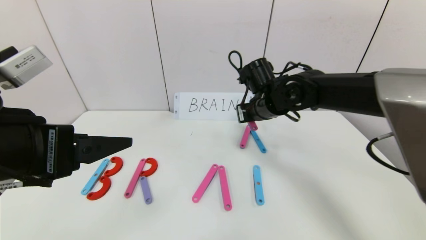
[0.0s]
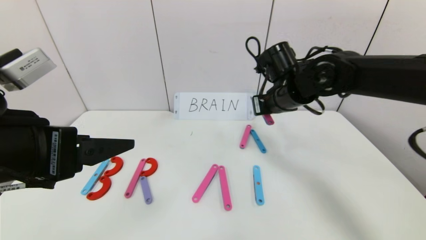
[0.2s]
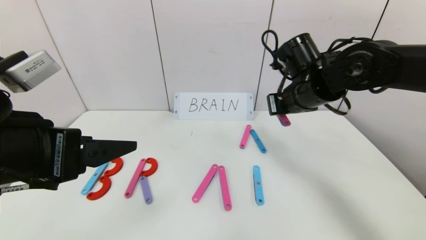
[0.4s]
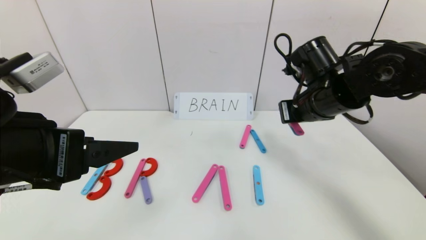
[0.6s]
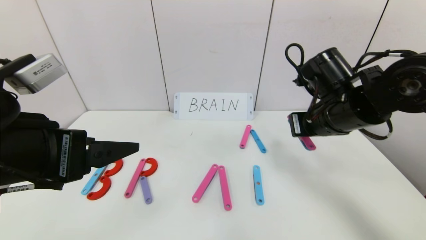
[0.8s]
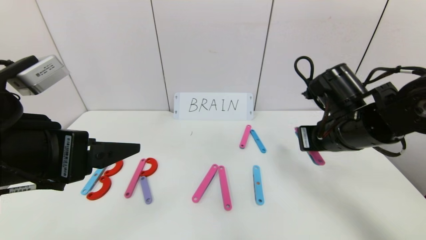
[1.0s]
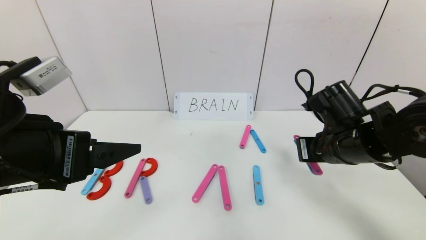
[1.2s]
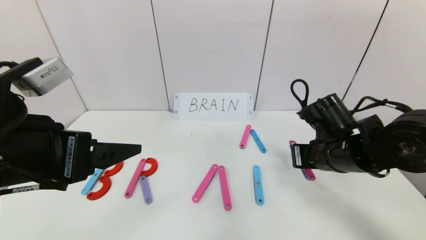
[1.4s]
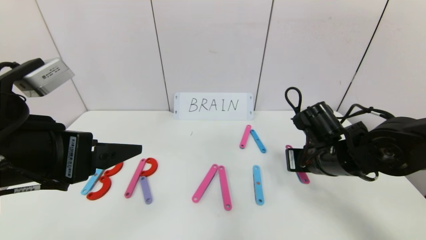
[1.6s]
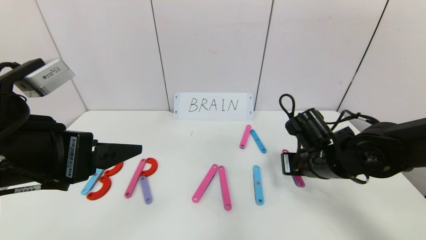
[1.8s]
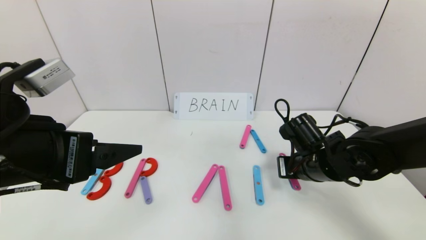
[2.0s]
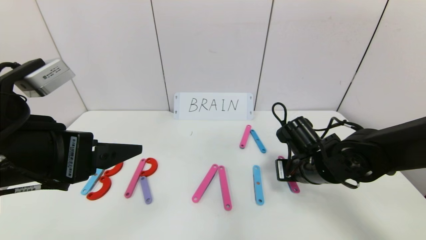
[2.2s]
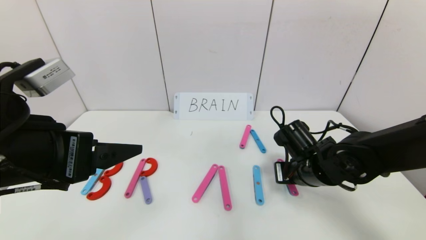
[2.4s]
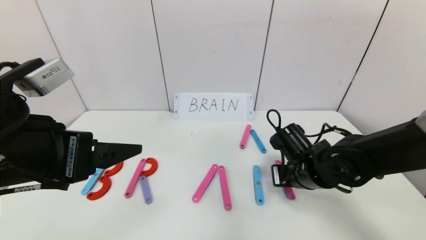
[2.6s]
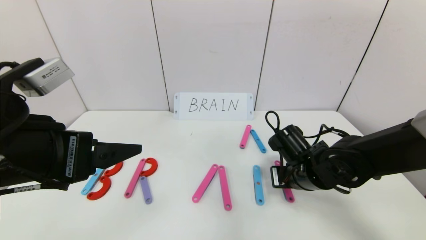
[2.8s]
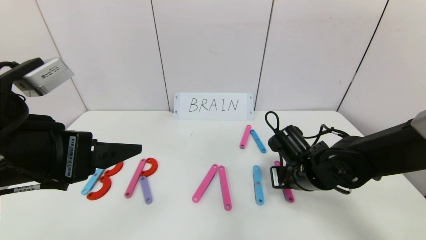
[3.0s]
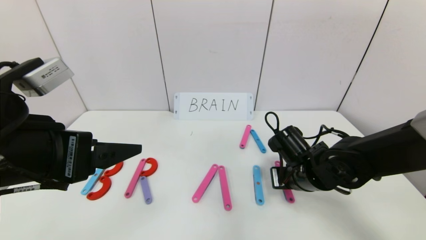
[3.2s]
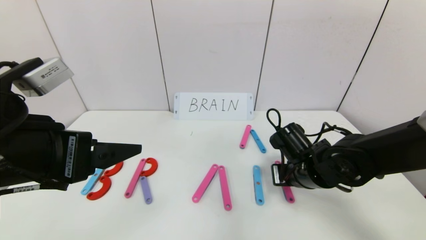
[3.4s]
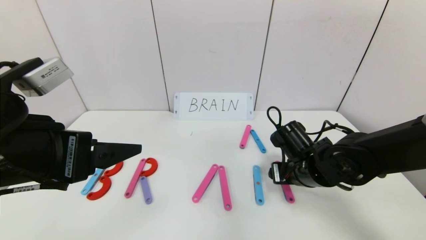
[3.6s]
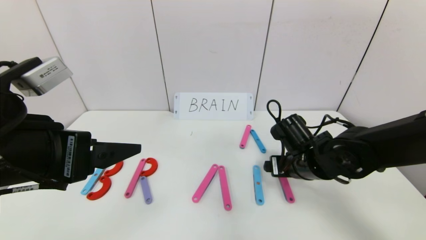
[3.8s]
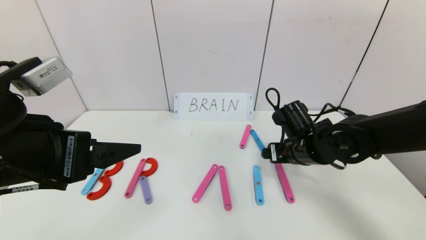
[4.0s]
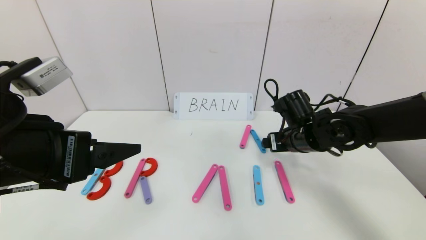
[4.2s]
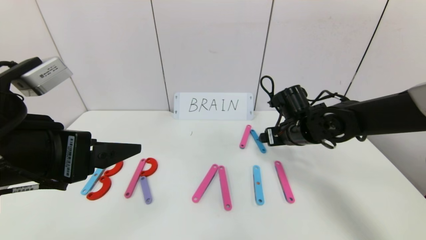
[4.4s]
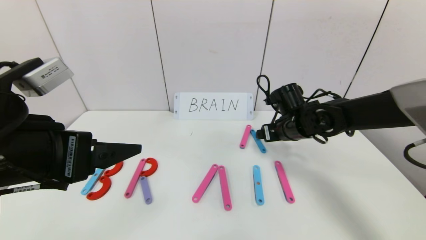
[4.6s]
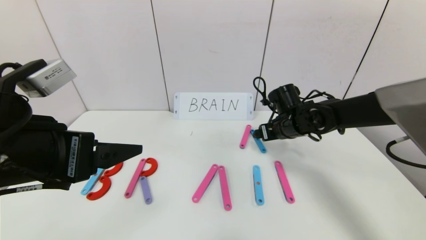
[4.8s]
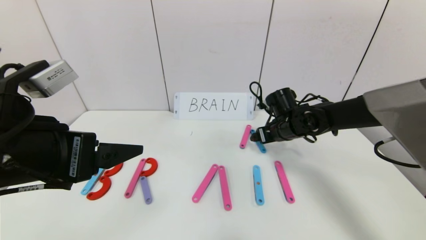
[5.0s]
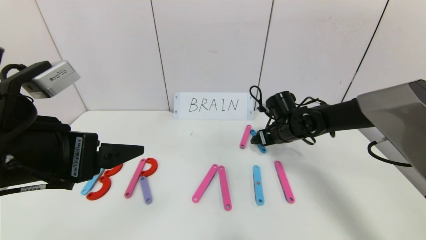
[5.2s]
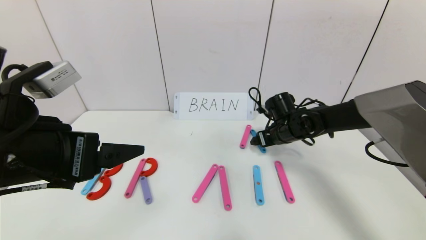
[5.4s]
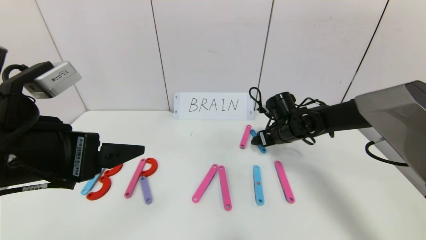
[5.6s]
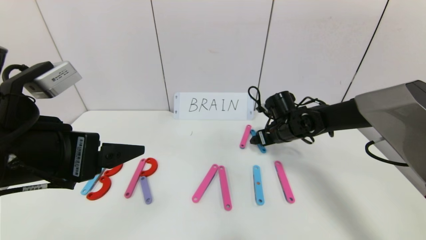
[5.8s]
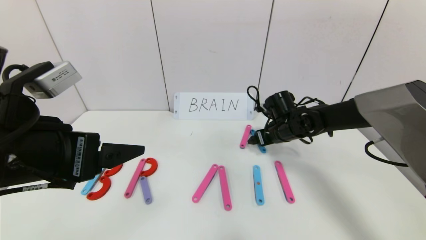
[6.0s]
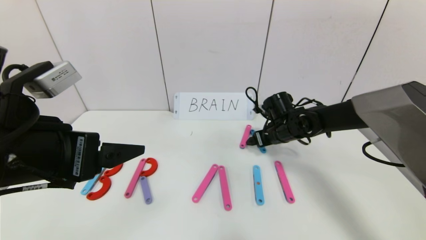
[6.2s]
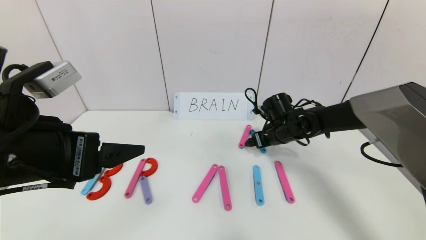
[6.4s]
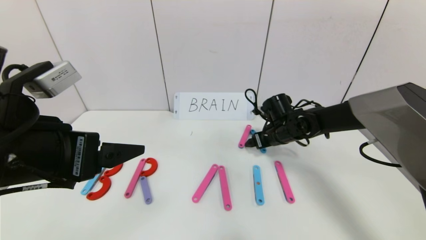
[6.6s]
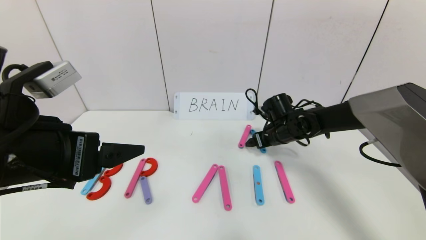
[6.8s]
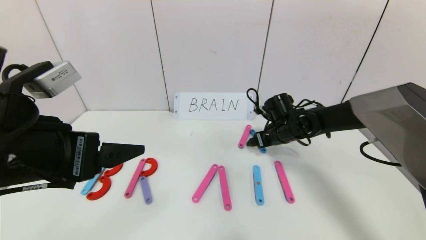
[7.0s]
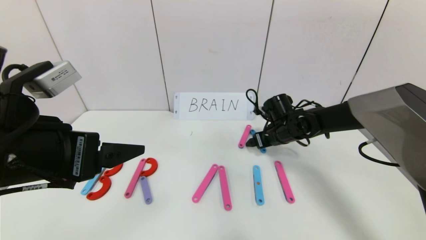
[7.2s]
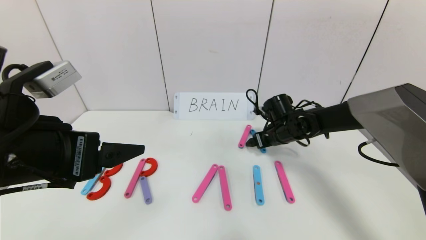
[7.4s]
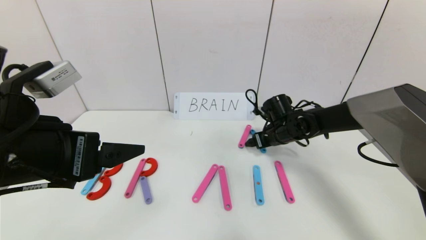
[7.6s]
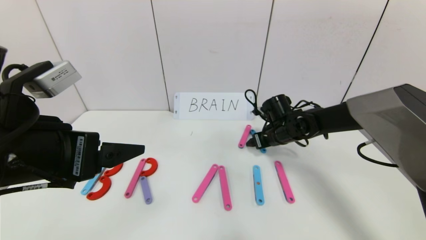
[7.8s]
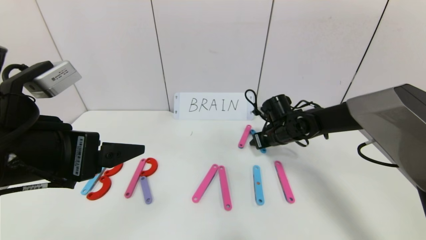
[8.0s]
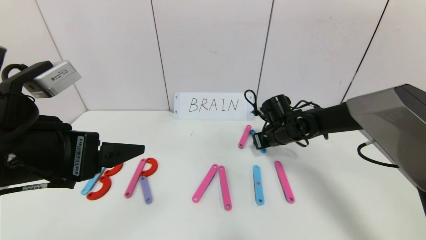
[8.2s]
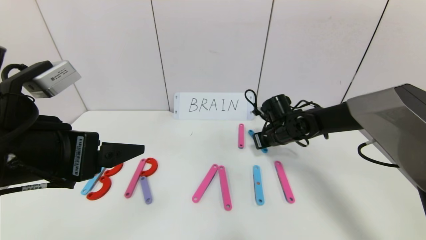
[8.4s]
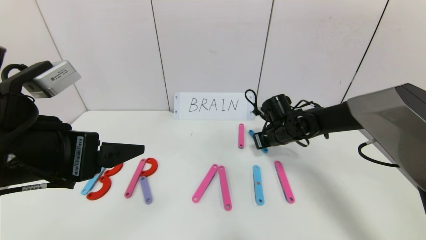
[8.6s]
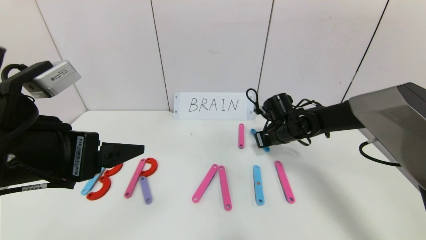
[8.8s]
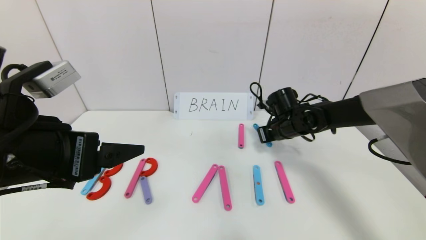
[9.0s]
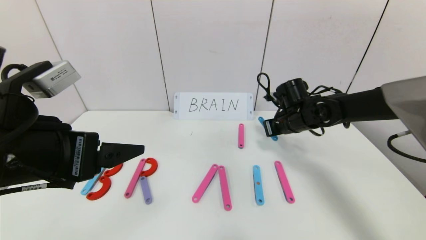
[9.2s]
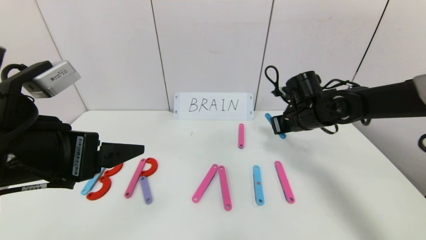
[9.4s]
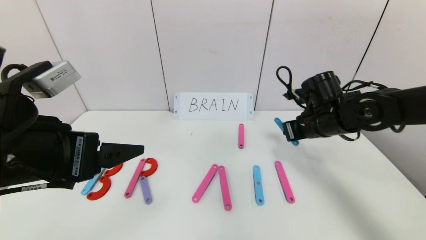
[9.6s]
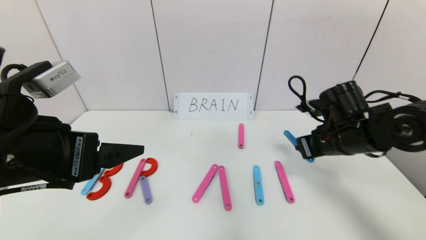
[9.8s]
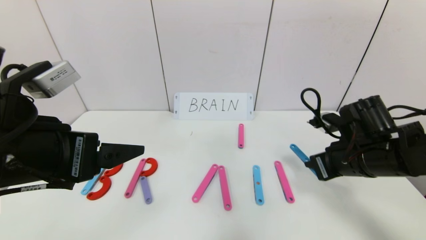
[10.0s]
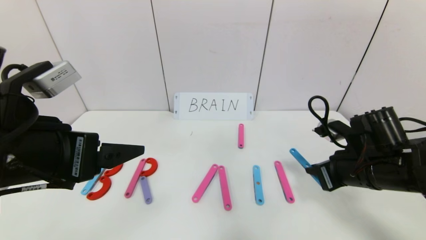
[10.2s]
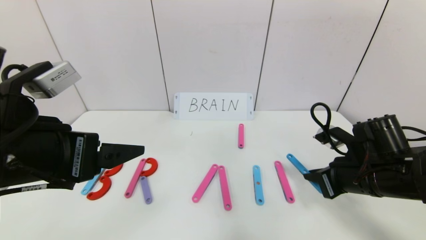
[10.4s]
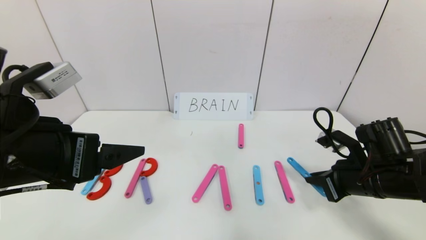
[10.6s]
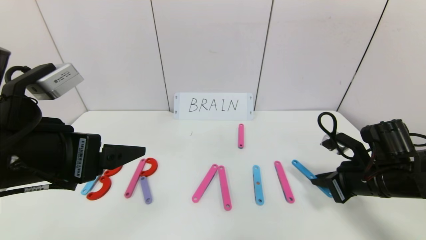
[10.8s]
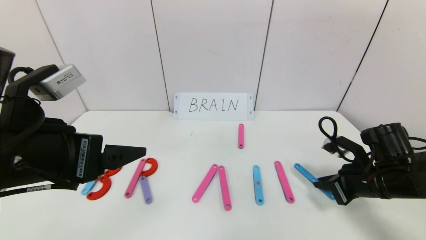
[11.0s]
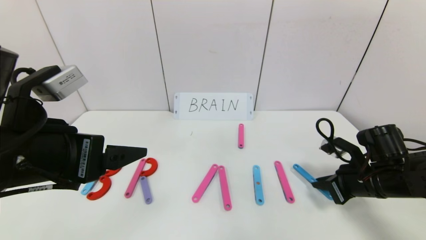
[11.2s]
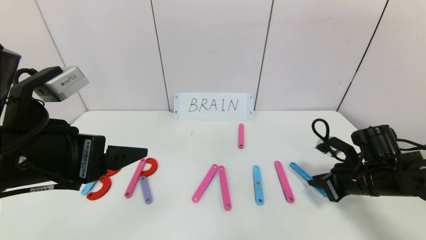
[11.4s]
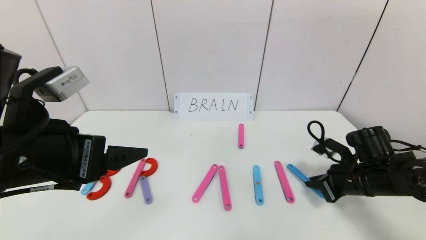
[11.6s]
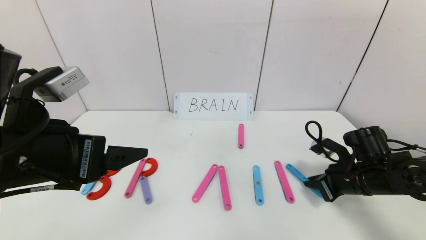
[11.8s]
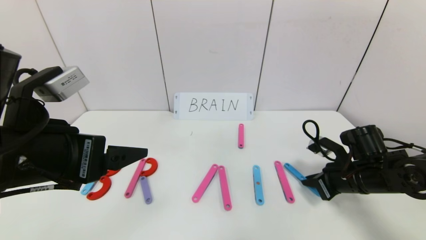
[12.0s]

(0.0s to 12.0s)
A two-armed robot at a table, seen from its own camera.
Task of the whole recording: rearrange the word baai as brain.
0.0s - 1.6s: The right gripper goes roughly 15 cm backward, to the right and downward.
1.6s - 3.0s: The right gripper goes some 5 cm downward.
3.0s - 4.4s: The right gripper goes approximately 10 cm forward and upward, and opens up.
4.4s - 6.0s: The right gripper travels forward by about 5 cm.
6.0s - 7.6s: Neither gripper changes place.
7.6s - 9.0s: The right gripper closes.
9.0s - 10.4s: The right gripper is displaced backward by some 20 cm.
10.4s - 12.0s: The right gripper ends up about 5 cm from where it was.

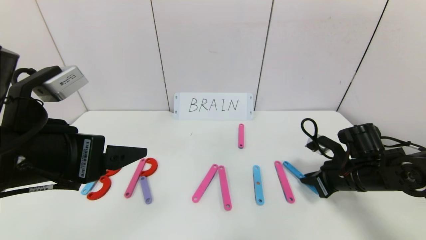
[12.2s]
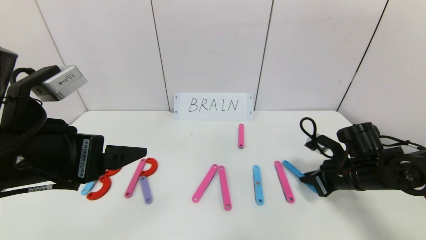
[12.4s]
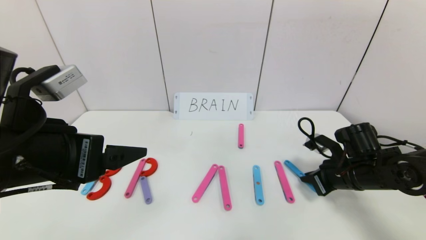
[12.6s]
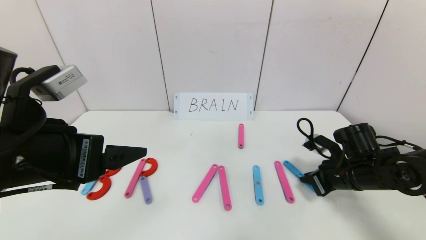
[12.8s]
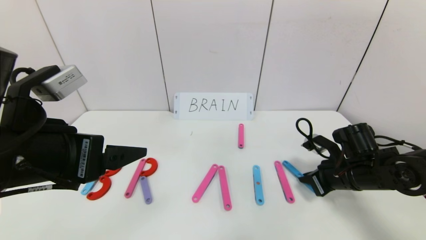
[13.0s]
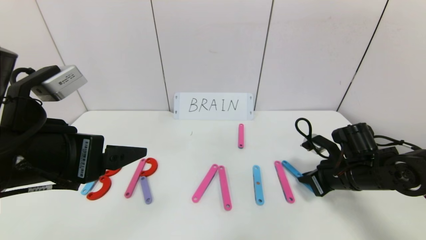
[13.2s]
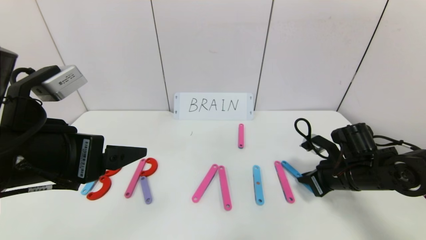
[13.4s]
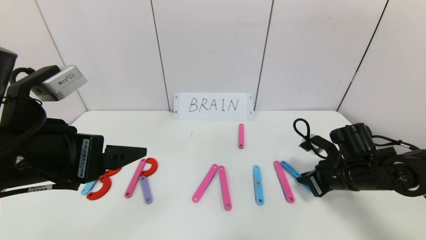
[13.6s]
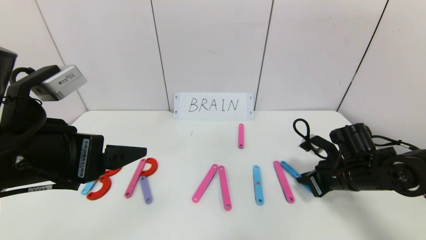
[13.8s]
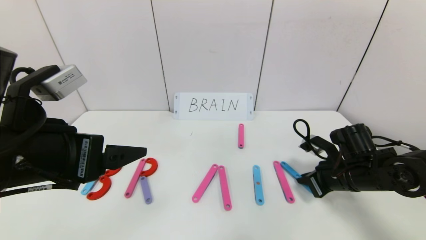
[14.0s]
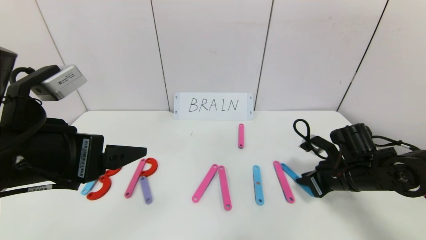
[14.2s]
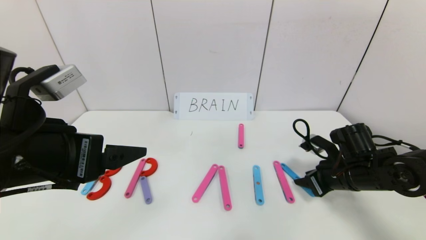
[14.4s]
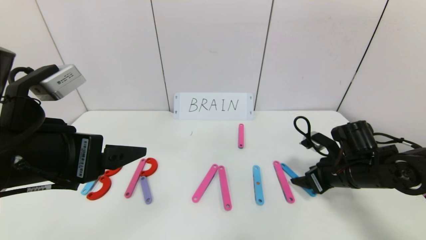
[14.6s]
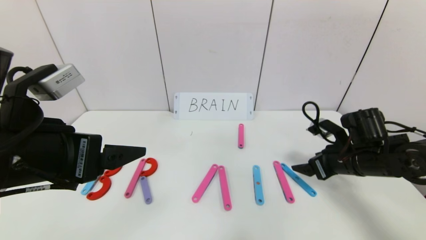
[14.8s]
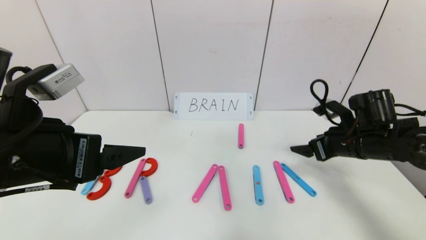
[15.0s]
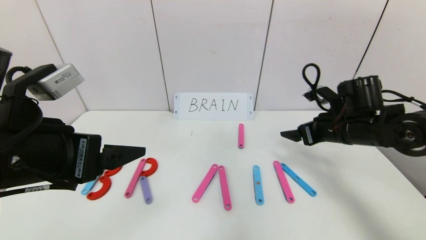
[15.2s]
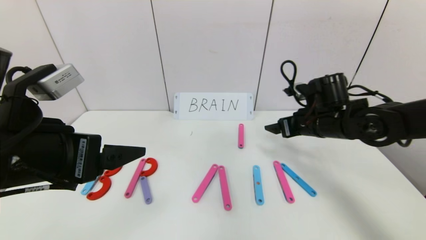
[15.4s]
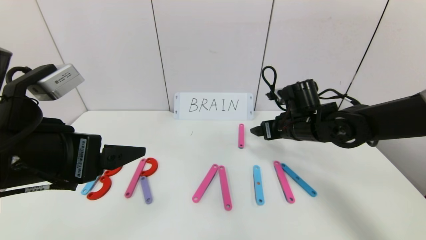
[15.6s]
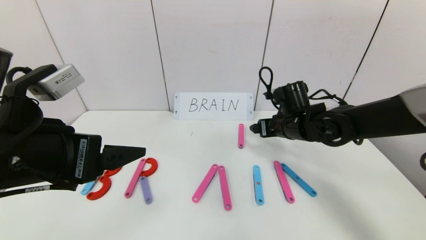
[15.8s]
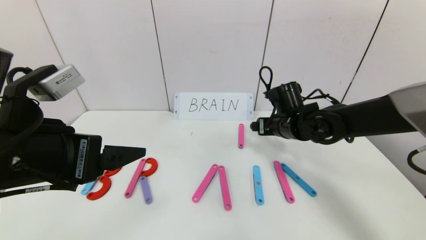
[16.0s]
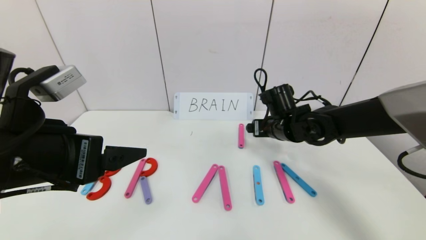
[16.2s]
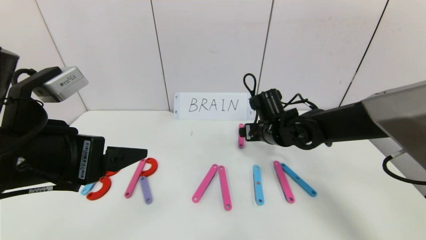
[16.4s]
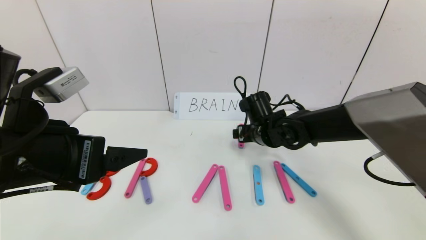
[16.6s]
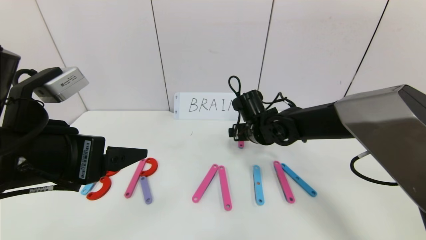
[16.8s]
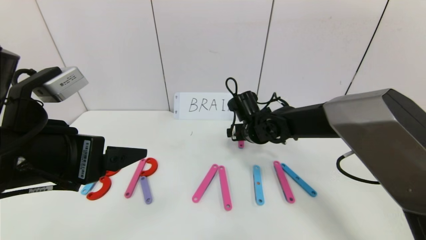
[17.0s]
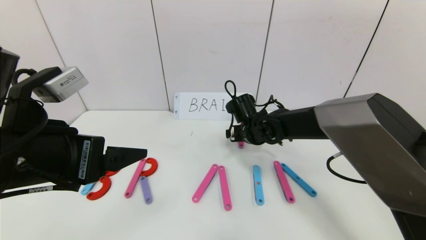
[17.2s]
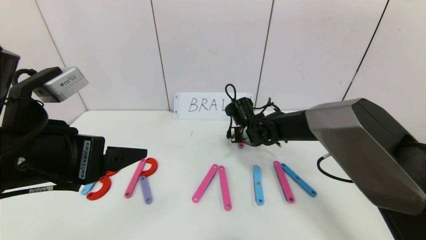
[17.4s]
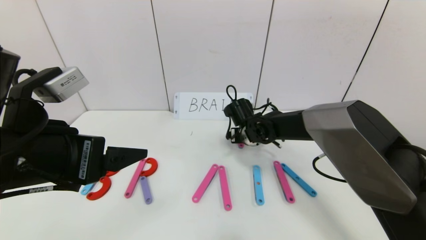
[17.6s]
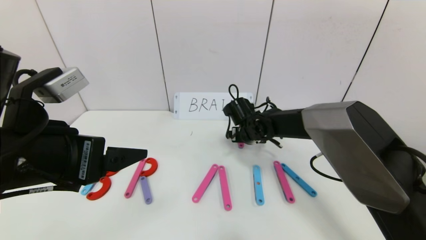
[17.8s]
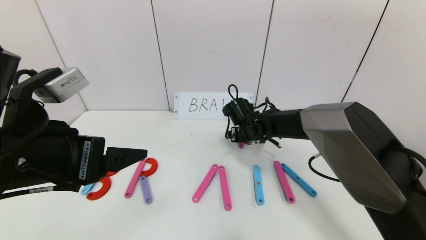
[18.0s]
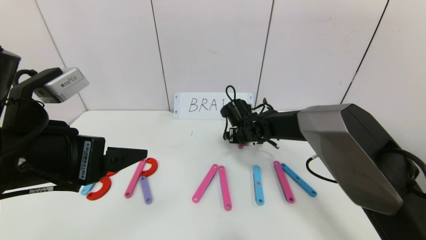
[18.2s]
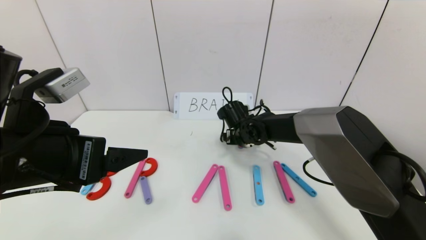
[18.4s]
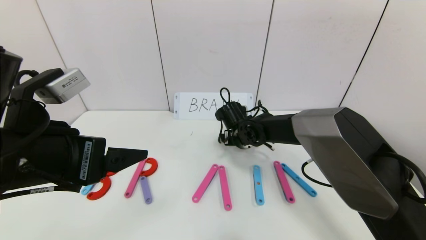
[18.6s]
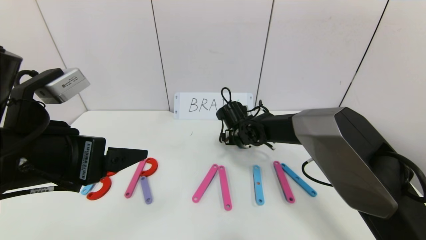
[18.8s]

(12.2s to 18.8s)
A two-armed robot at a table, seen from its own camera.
Task of the whole recording: rearrange the word baai as brain.
12.2s - 13.8s: Both grippers stay about where they are.
13.8s - 15.4s: The right gripper moves upward, forward and to the left, approximately 10 cm, and opens its fingers.
15.4s - 17.2s: The right gripper moves to the left, downward and forward, roughly 15 cm.
17.2s - 18.8s: The grippers make only small movements.
